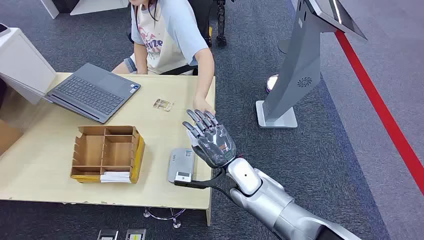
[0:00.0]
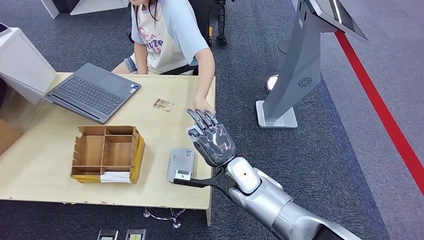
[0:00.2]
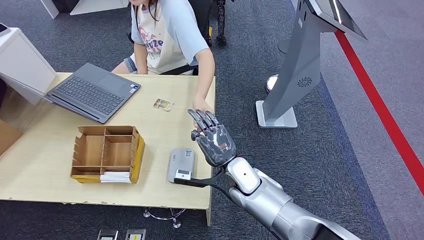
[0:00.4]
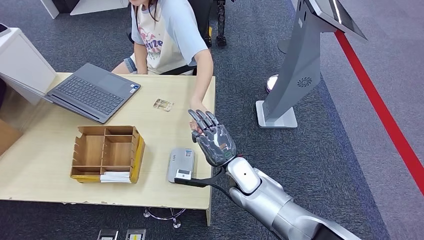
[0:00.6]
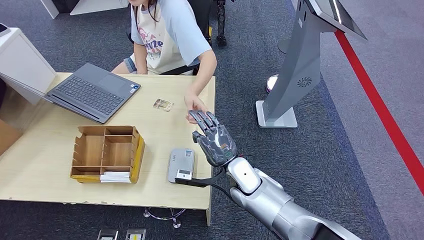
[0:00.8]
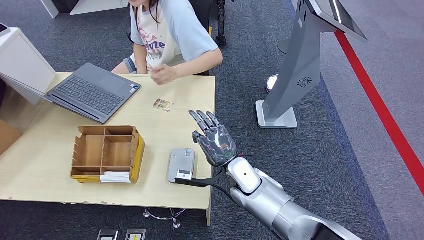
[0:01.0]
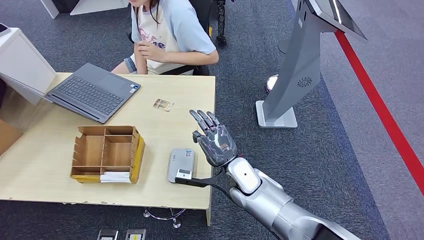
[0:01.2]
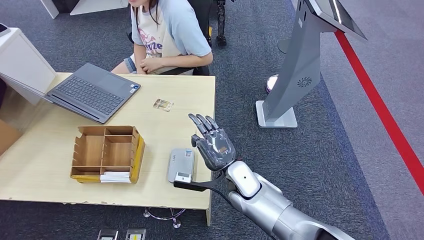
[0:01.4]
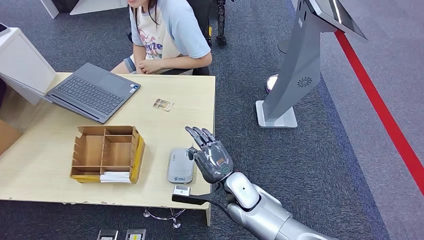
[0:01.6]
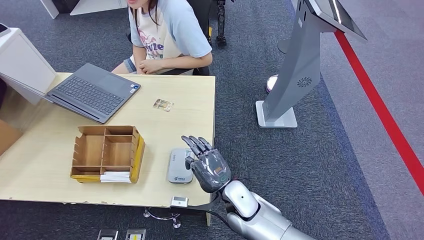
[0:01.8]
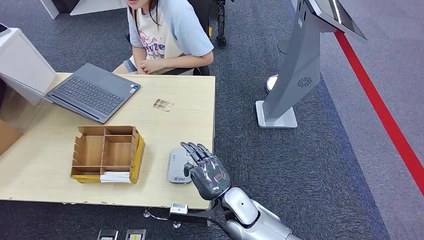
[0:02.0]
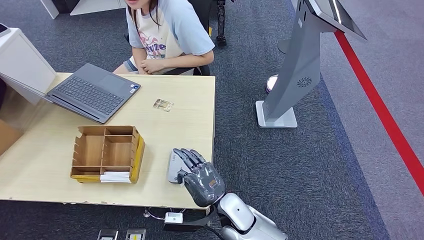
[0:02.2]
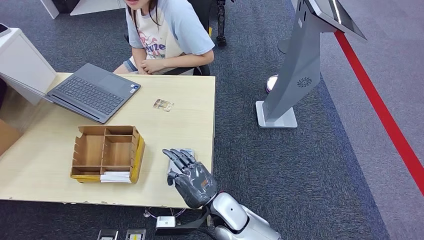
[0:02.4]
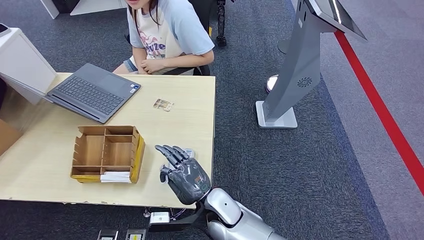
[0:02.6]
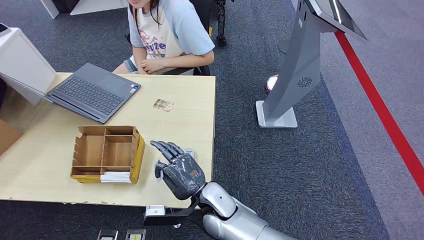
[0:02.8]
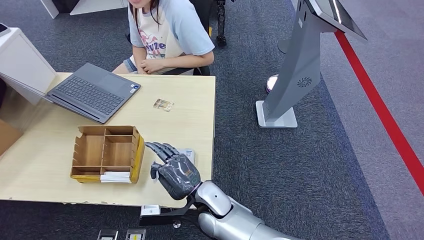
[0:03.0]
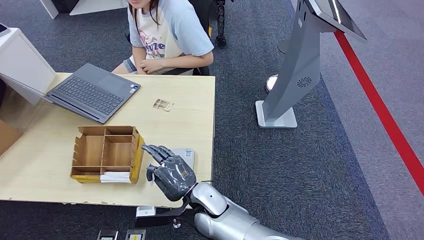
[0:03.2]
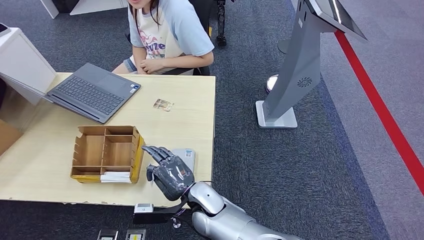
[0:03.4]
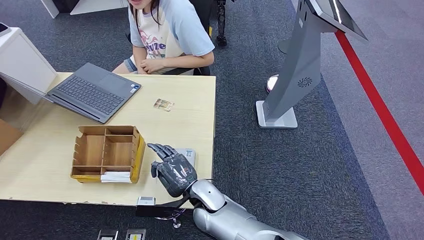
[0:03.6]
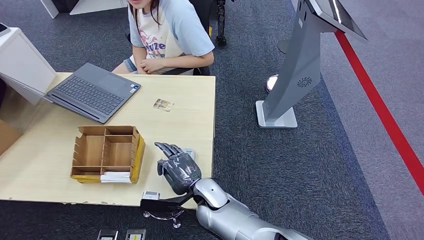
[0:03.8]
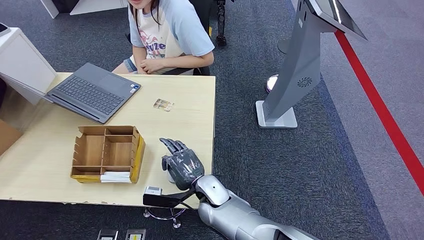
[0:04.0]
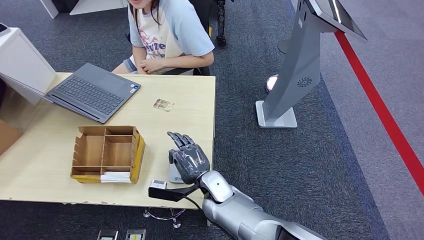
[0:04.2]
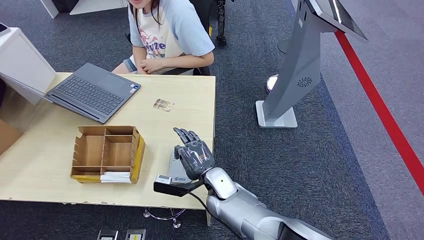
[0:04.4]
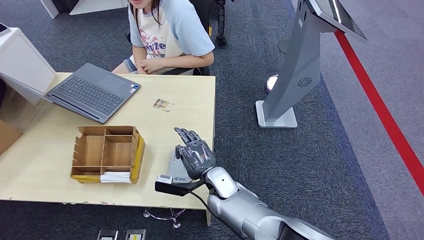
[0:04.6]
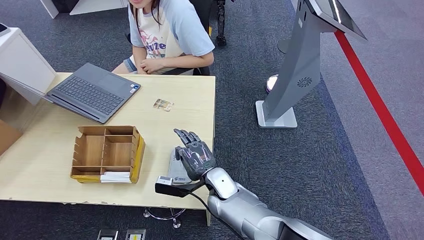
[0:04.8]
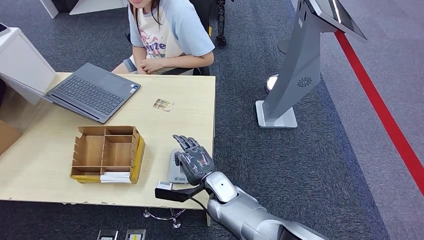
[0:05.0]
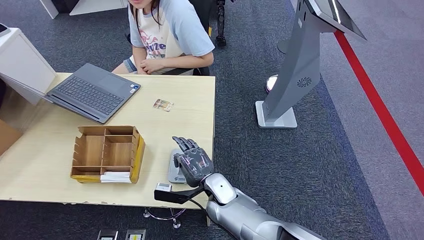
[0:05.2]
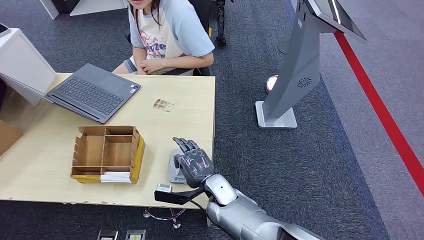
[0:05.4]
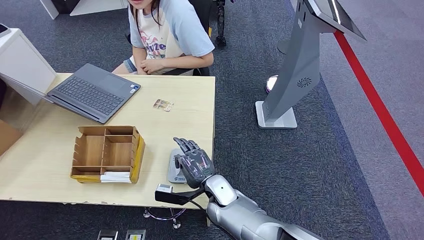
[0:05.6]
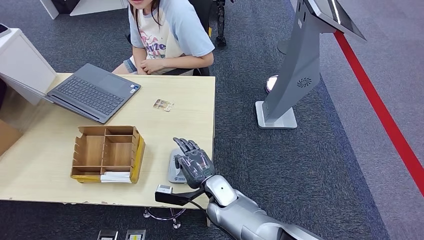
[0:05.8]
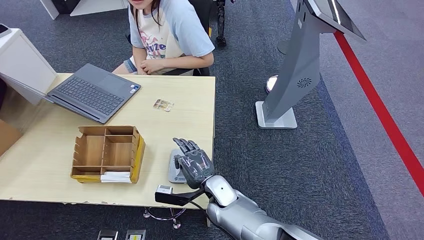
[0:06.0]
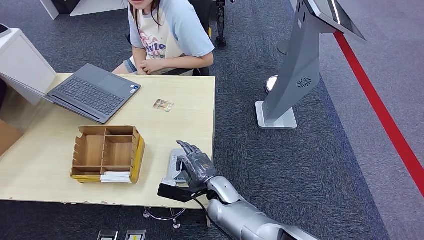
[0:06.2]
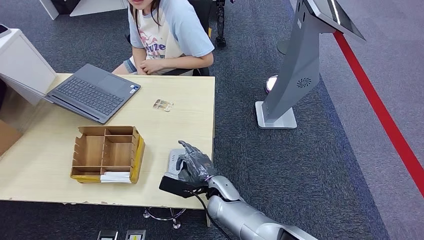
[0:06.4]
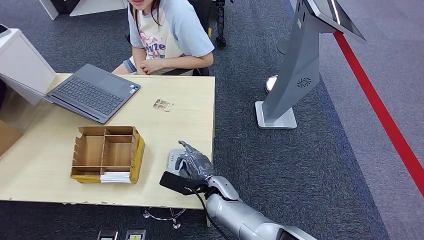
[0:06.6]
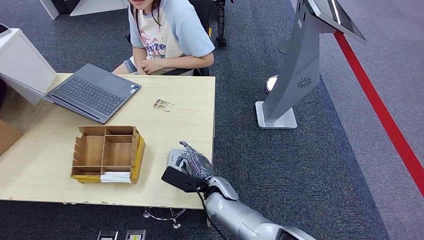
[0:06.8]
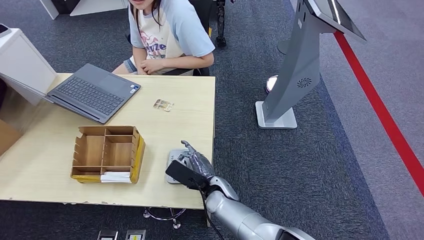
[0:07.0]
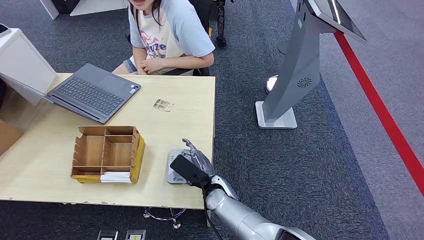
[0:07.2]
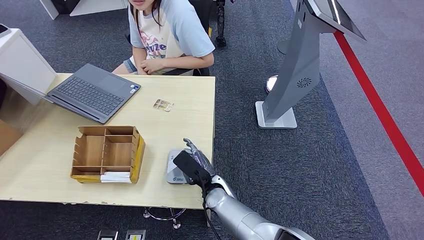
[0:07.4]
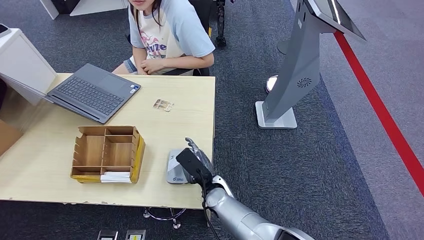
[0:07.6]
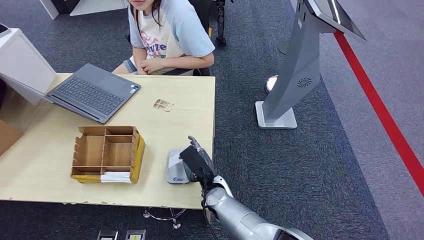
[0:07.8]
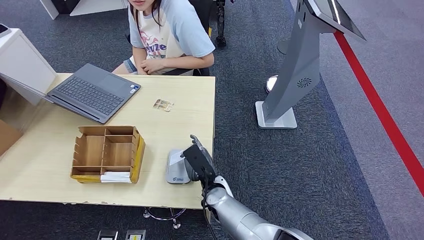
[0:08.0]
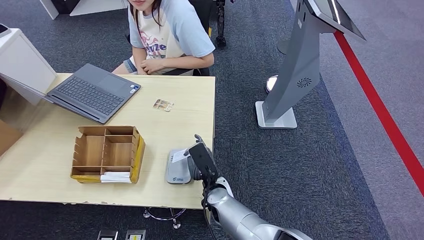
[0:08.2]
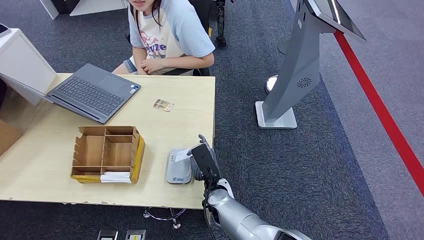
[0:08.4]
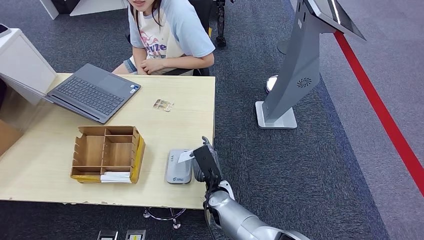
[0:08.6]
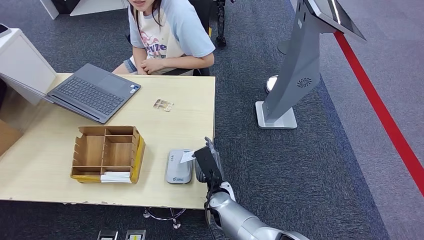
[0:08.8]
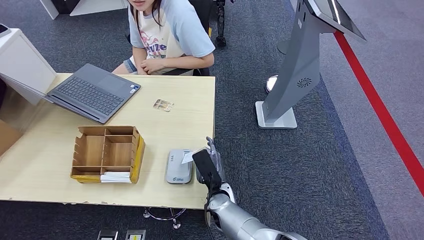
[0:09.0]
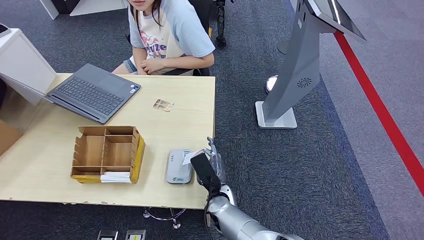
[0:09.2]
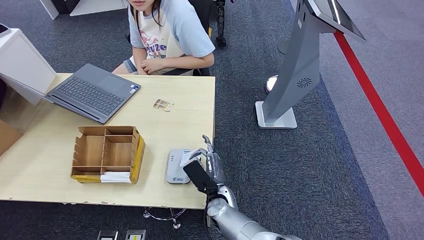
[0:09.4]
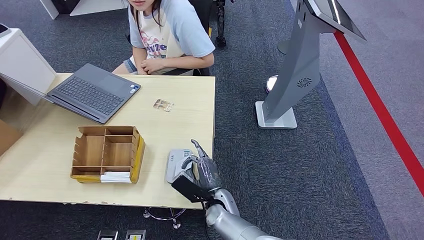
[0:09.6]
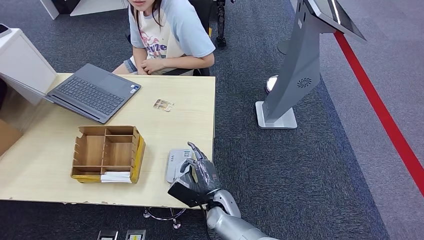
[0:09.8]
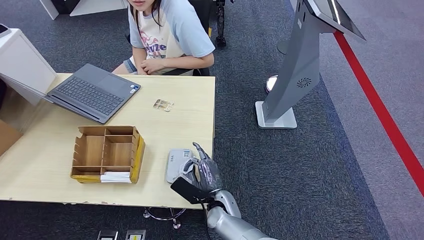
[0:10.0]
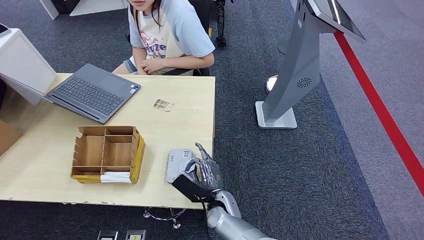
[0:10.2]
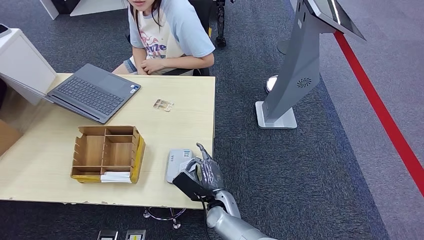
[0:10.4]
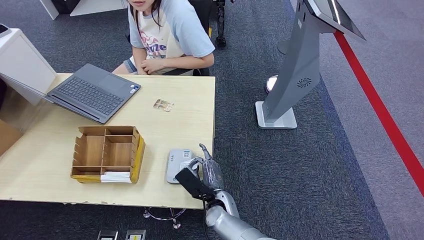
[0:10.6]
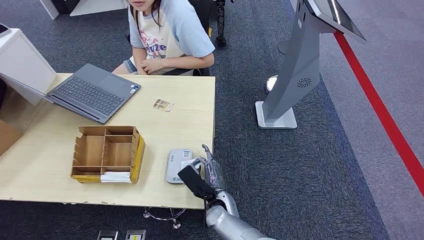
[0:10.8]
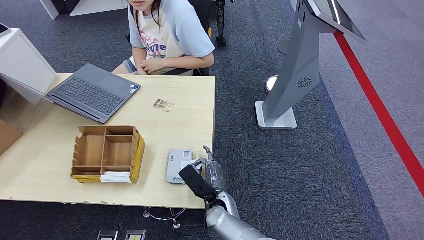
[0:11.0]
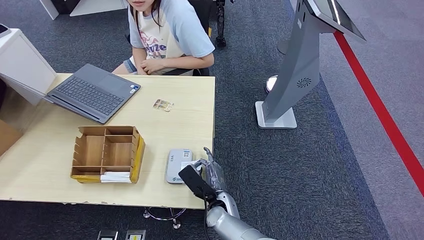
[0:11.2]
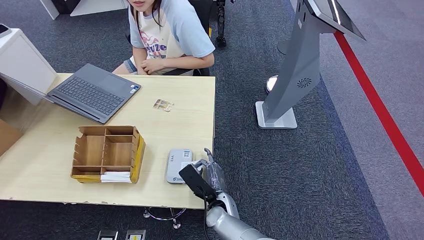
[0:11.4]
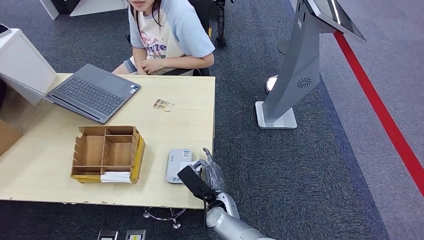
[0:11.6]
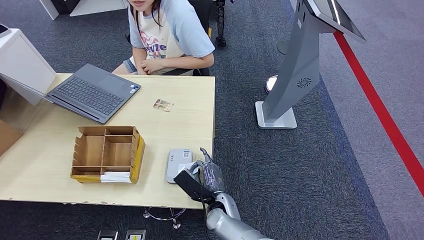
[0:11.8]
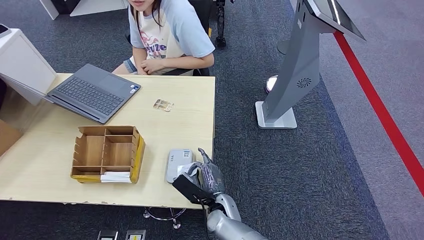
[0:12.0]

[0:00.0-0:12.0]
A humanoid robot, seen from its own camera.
Step, 0:00.0 to 0:00.6: Take the ID card from the person's hand.
0:01.6 to 0:03.0: The right hand moves to the left, approximately 10 cm.
0:03.0 to 0:04.4: The right hand changes place by some 5 cm.
0:04.4 to 0:06.0: There are only small adjustments of the hands.
0:07.6 to 0:09.0: There are only small adjustments of the hands.
0:10.4 to 0:12.0: The hands stay close to where they were, moving slightly.

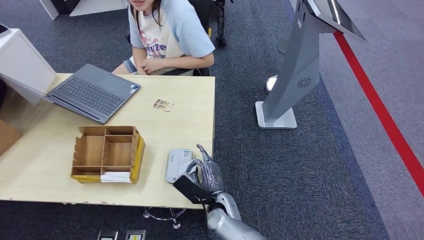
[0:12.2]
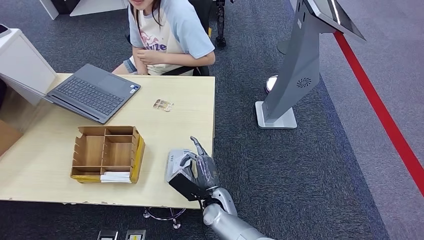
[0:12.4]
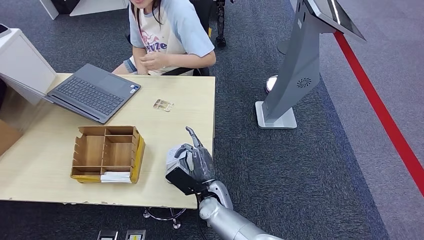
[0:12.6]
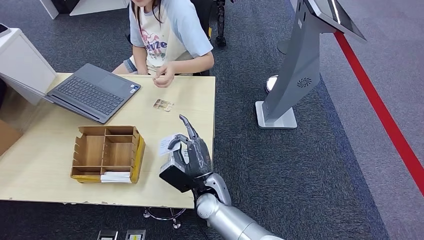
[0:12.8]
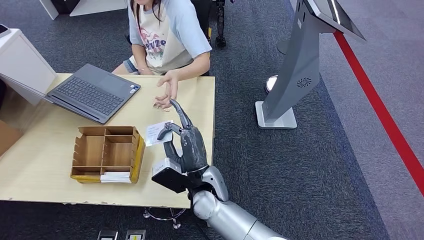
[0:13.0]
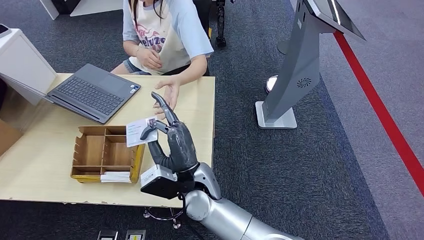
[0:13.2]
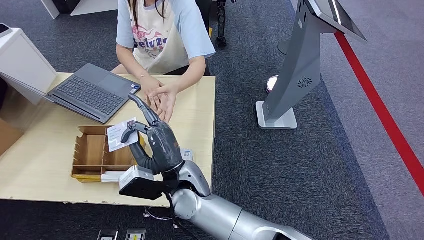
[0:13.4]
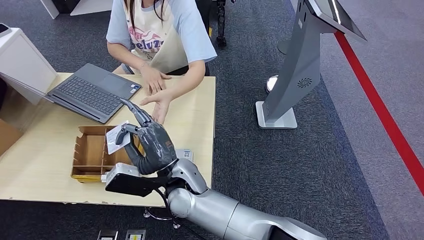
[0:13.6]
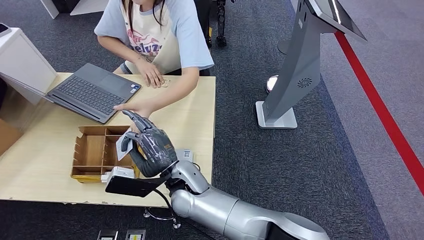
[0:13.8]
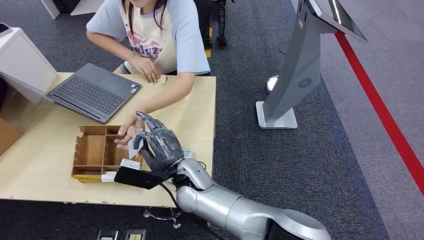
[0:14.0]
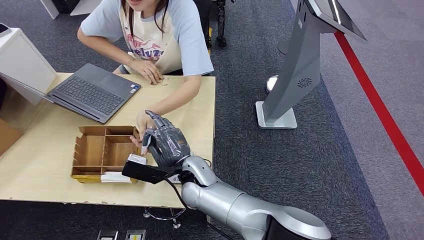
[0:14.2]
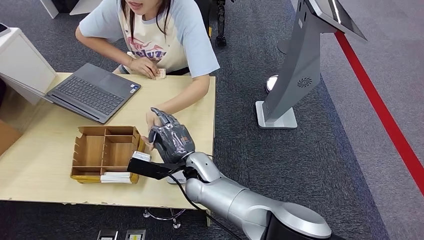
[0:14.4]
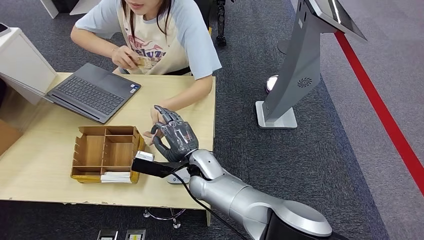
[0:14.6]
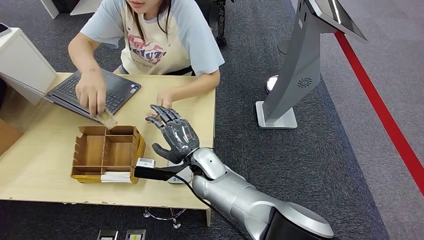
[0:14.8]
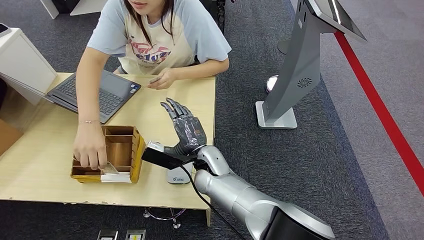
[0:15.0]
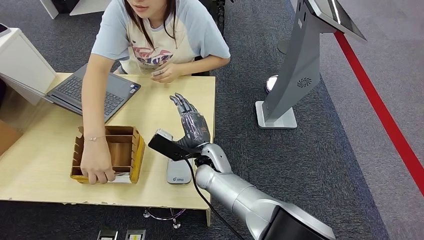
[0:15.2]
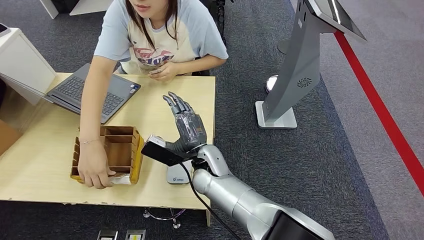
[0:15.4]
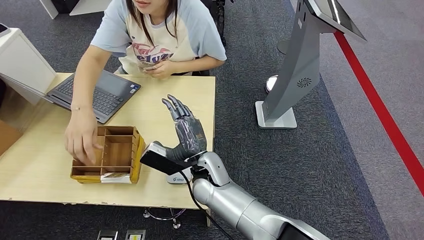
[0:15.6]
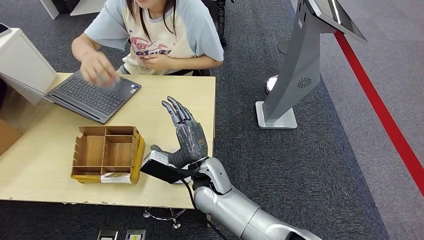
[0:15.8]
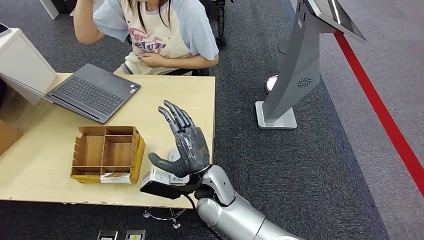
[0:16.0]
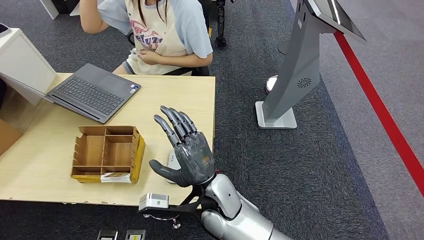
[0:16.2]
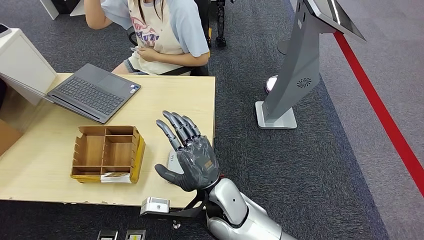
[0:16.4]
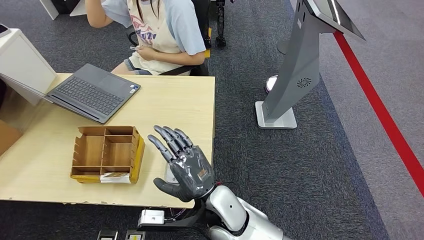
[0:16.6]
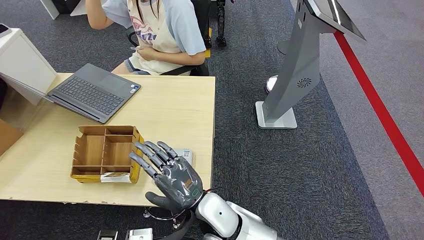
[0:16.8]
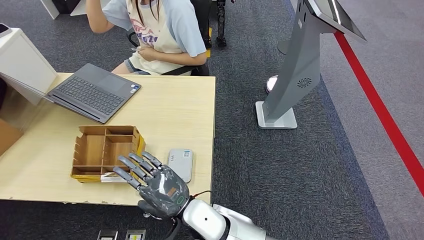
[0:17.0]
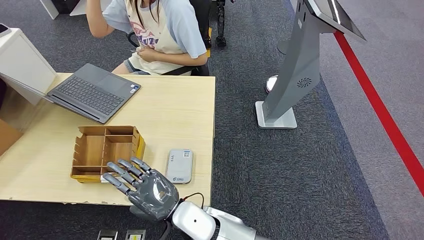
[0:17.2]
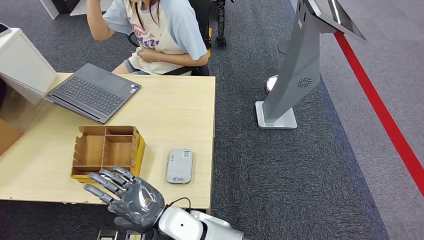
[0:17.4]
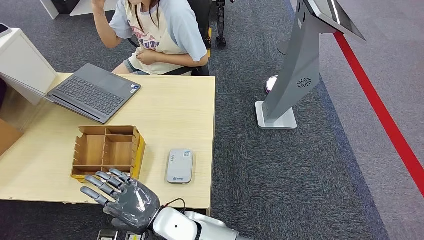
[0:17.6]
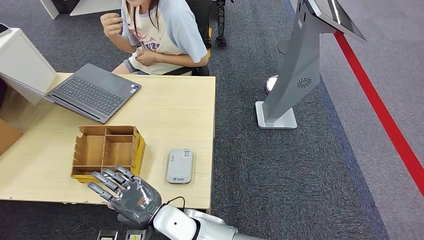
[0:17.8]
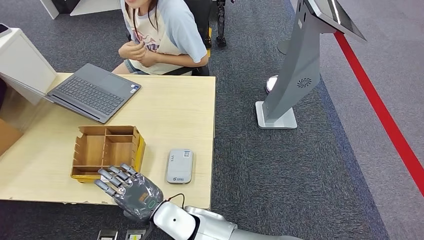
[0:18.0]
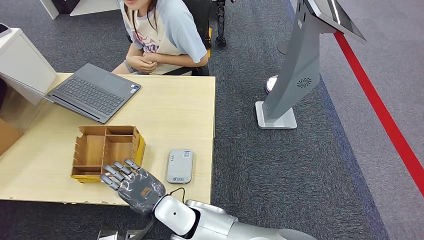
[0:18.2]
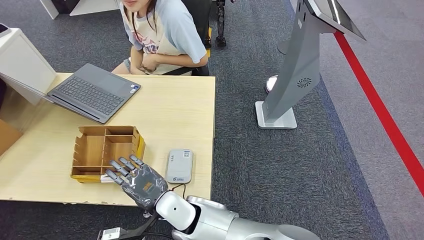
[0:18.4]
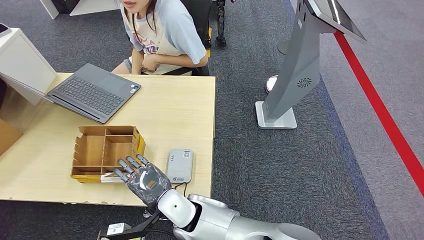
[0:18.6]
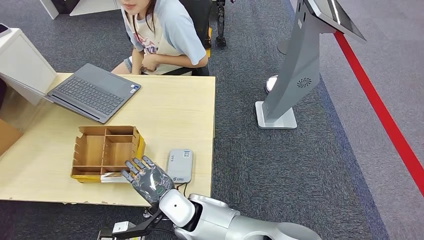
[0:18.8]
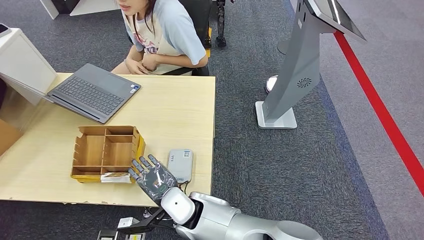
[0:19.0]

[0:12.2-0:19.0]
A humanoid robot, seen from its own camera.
Step, 0:13.2 to 0:17.4: Hand the ID card to the person.
0:12.2 to 0:13.6: The right hand travels upward and to the left by approximately 20 cm.
0:16.2 to 0:17.6: The right hand moves to the left and backward, approximately 10 cm.
0:17.6 to 0:19.0: The right hand goes roughly 5 cm forward.
